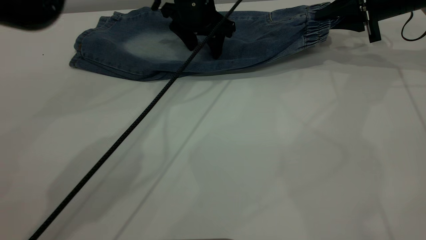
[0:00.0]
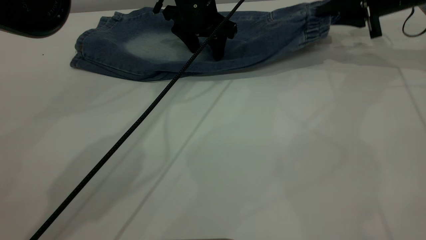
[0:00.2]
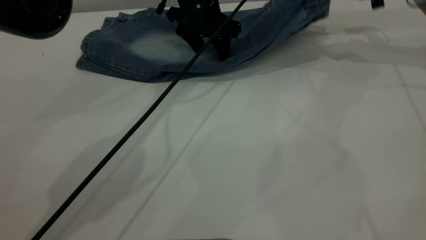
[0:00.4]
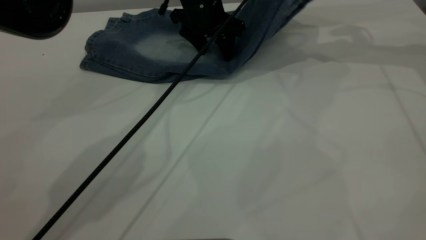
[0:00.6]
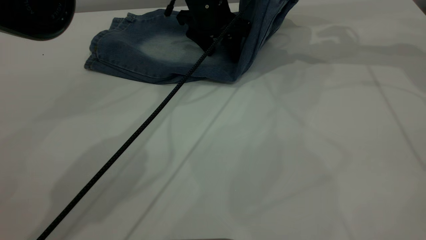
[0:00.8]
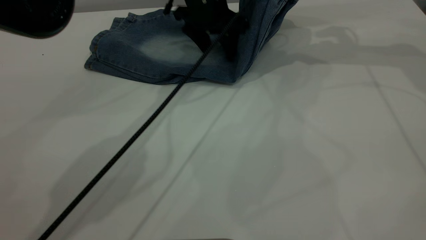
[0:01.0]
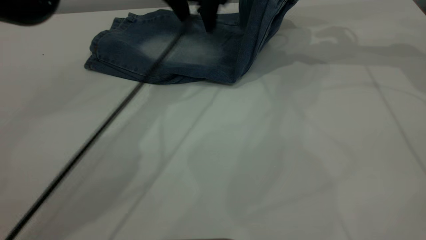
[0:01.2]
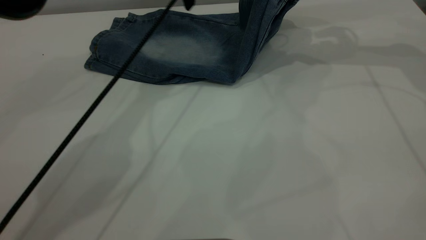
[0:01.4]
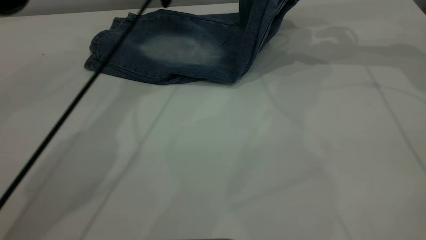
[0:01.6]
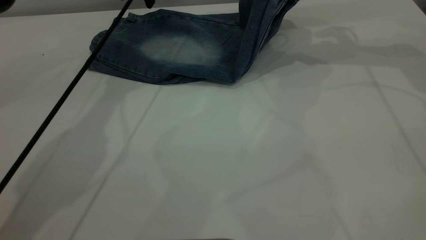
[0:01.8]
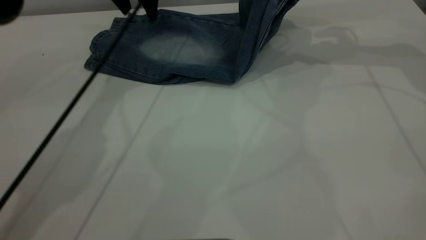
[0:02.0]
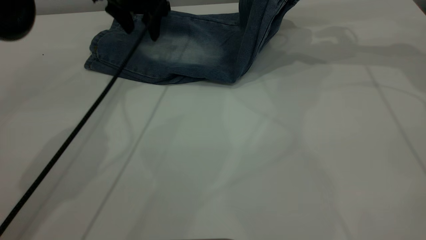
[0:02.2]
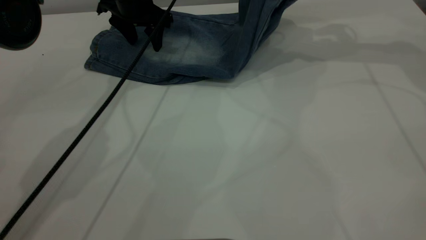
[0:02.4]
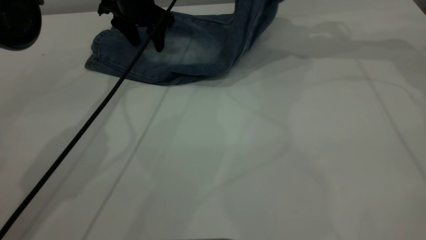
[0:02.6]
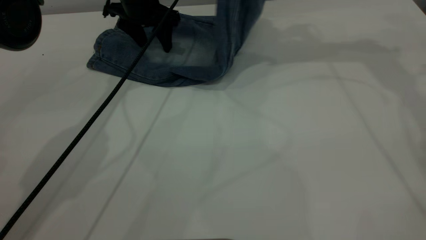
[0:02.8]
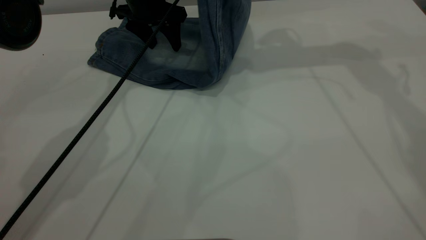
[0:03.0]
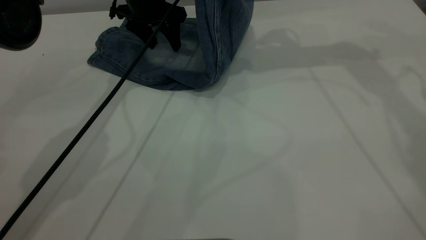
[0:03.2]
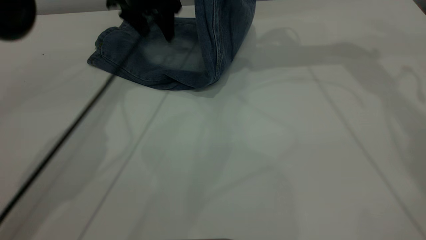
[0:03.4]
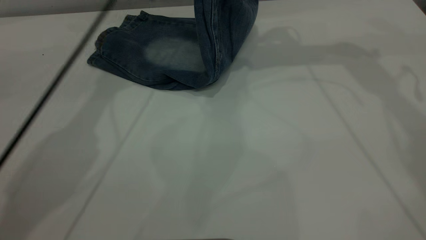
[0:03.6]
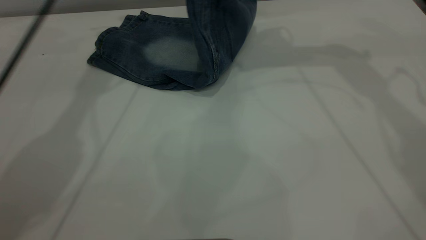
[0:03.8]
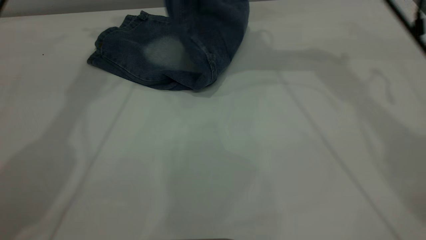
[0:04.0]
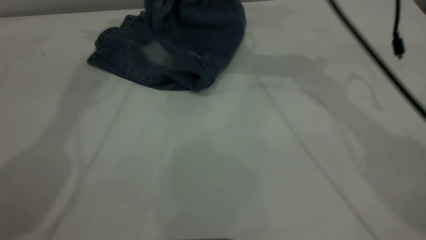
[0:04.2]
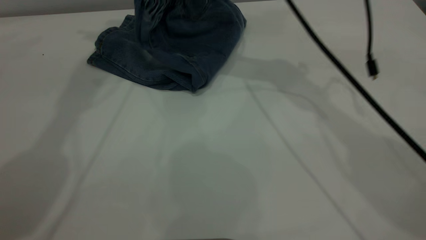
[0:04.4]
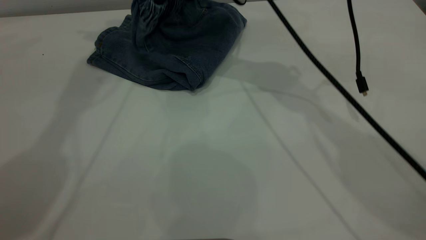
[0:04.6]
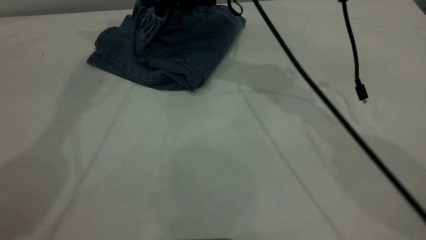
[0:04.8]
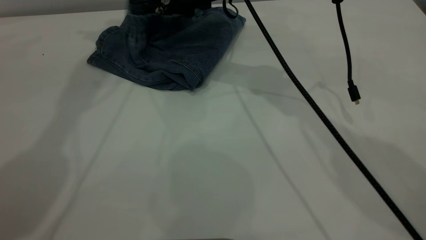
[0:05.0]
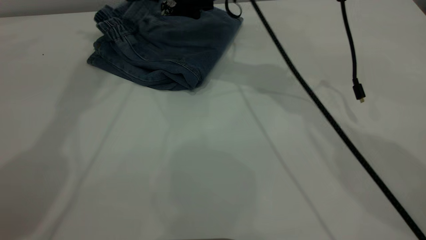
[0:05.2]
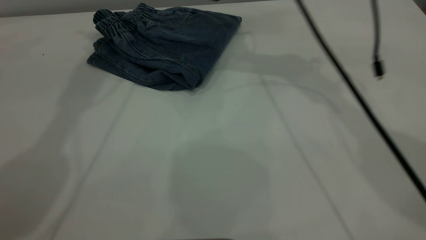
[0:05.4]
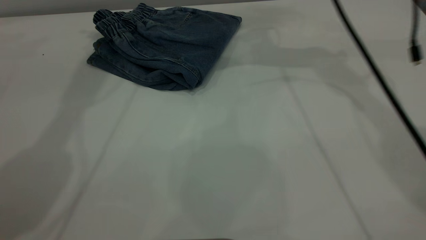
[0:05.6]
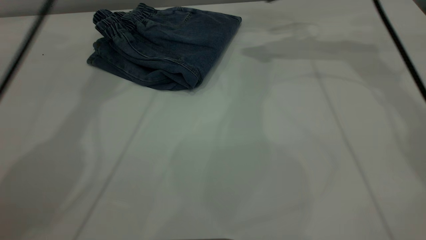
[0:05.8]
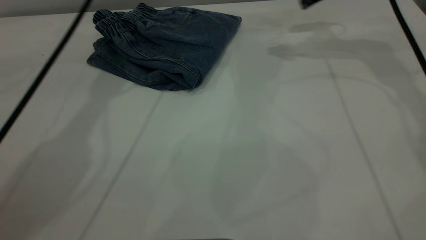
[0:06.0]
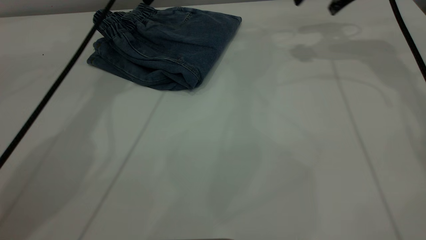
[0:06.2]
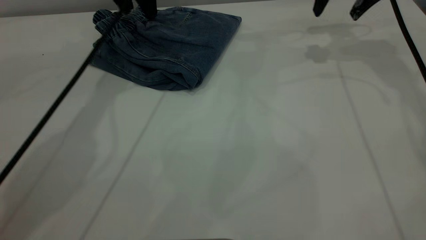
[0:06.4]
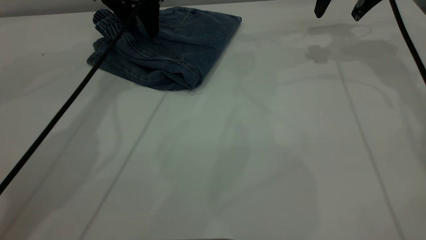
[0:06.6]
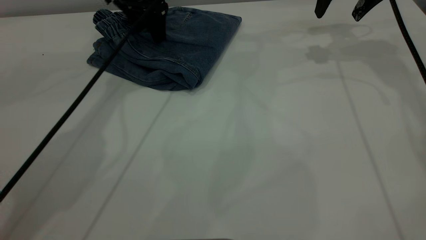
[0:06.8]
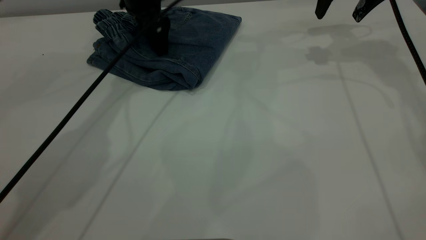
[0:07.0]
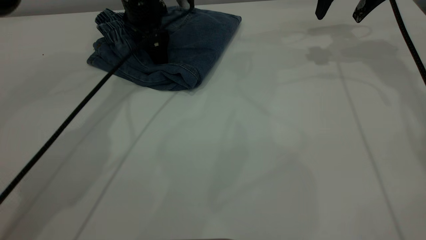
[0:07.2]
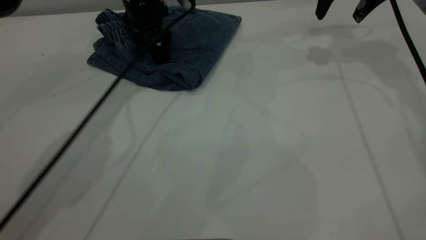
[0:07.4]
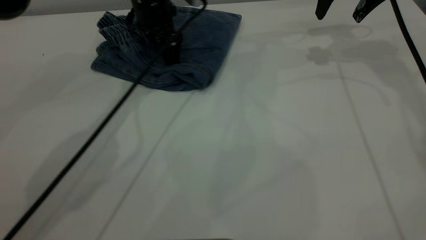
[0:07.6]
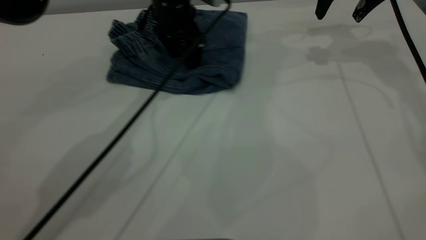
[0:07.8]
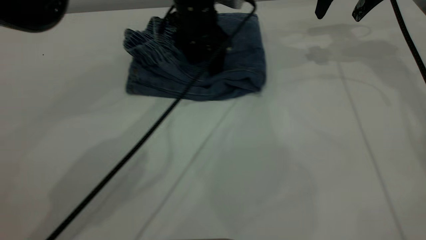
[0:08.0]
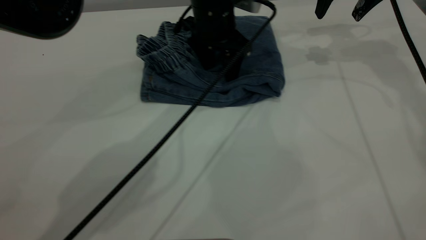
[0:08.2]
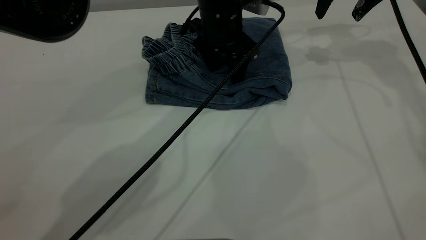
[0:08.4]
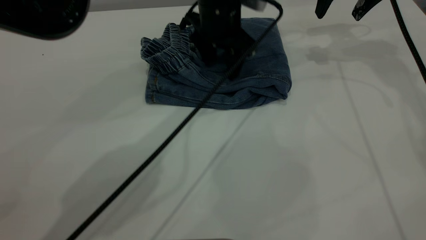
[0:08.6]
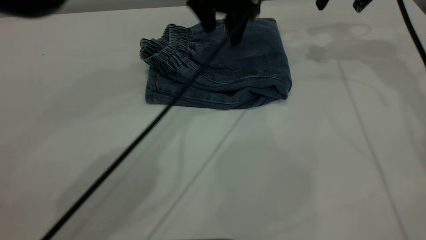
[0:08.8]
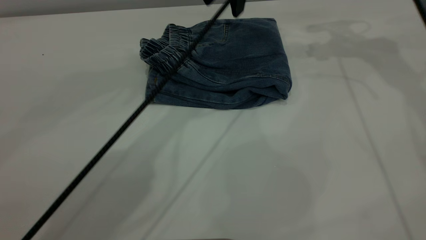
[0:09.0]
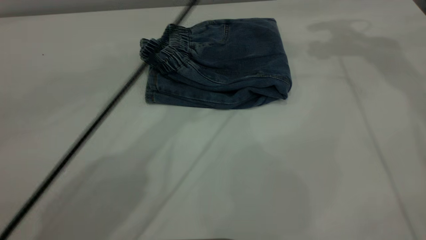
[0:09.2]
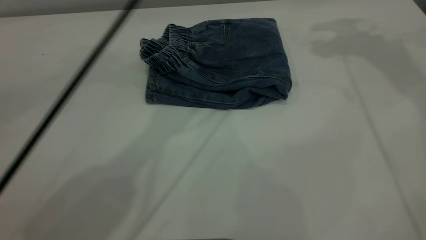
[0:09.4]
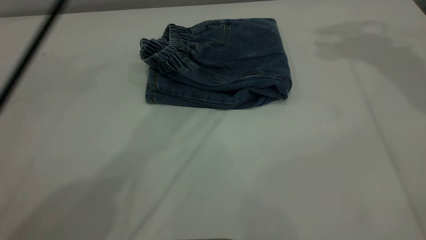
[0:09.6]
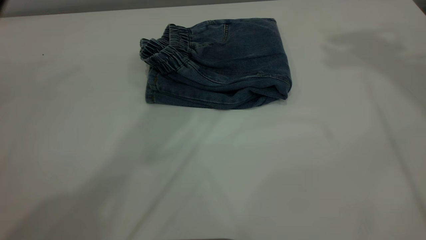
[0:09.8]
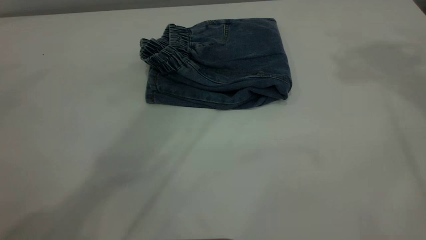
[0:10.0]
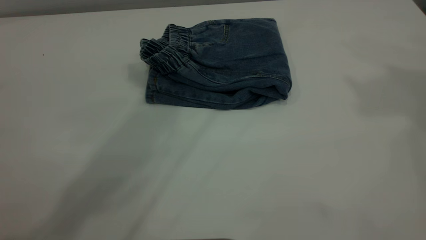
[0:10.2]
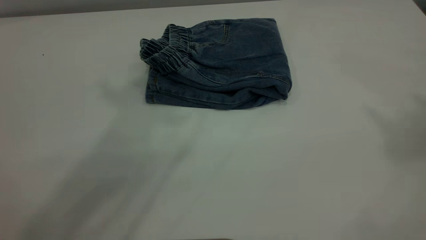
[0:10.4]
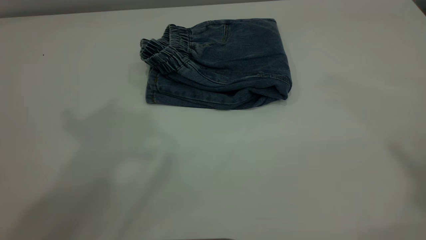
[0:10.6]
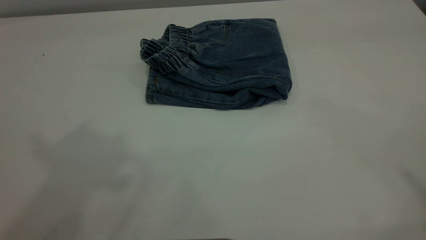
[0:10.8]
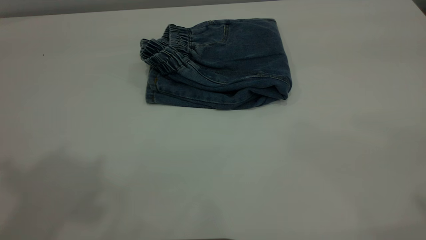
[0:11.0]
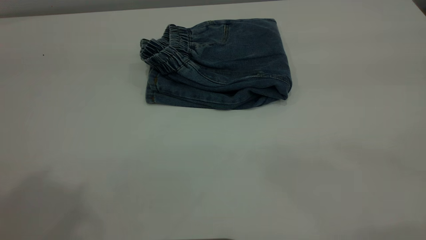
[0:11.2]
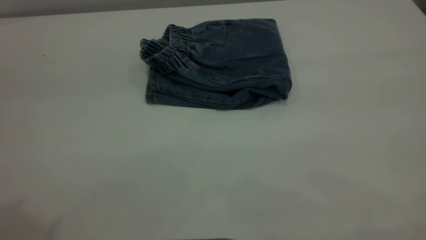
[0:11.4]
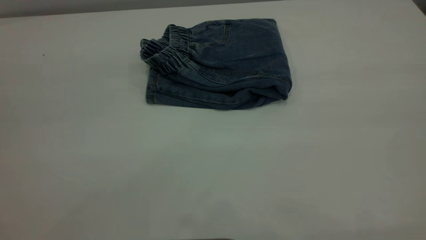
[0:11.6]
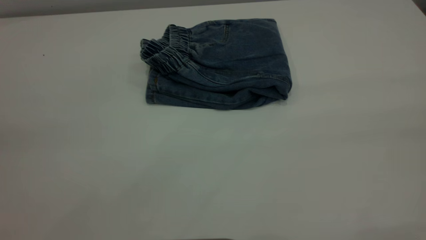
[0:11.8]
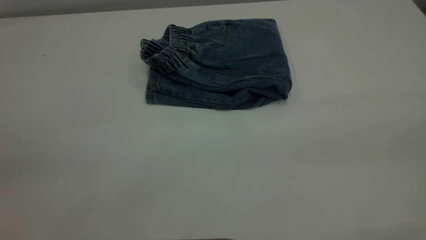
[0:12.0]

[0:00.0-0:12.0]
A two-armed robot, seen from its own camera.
Step, 0:00.0 to 0:05.4: Fold your pants from right to left.
0:00.0 to 0:01.6: The right gripper travels upward and to the left by approximately 10 cm, while the left gripper moves to the left and upward, roughly 15 cm.
0:01.6 to 0:03.0: The right gripper goes about 10 cm to the left and upward, while the left gripper moves downward, roughly 10 cm.
0:03.0 to 0:04.4: The left gripper heads upward, covering some 30 cm; the right gripper goes some 15 cm to the left and downward.
0:04.4 to 0:06.0: The right gripper is displaced to the right by some 20 cm, and opens, while the left gripper shifts some 15 cm downward.
0:06.0 to 0:07.6: The left gripper goes some 15 cm downward and to the right.
0:07.6 to 0:09.0: The right gripper heads upward, covering about 5 cm; the left gripper travels upward and to the right by some 15 cm.
0:09.0 to 0:10.4: The left gripper goes some 40 cm upward, backward and to the left. Meanwhile the right gripper goes some 40 cm upward and backward.
